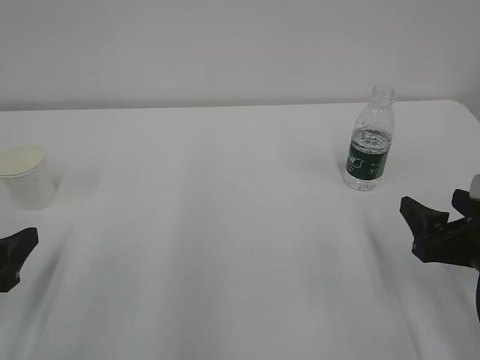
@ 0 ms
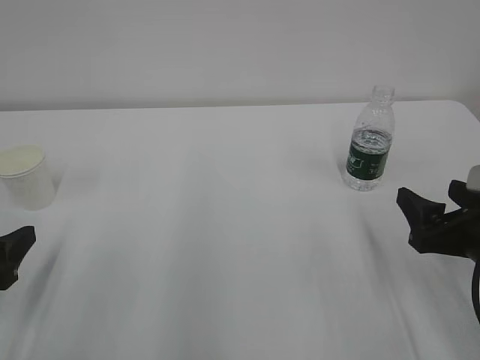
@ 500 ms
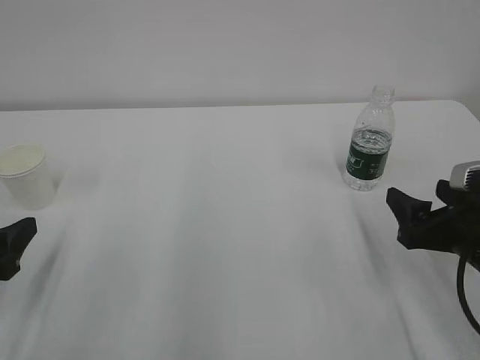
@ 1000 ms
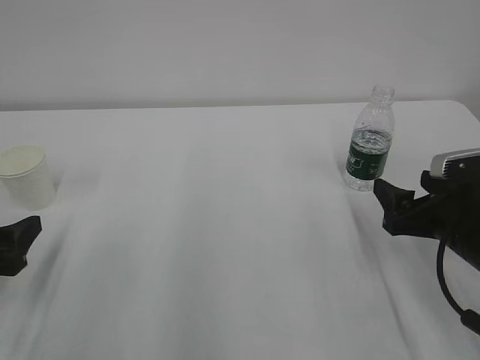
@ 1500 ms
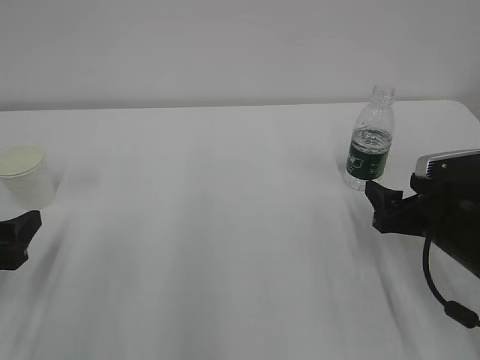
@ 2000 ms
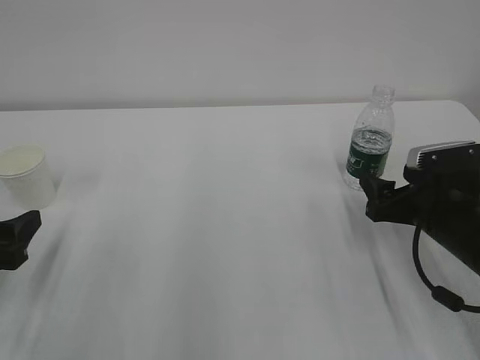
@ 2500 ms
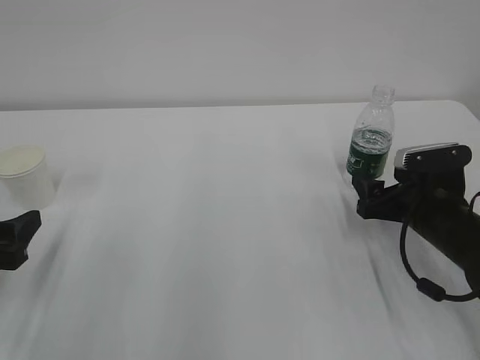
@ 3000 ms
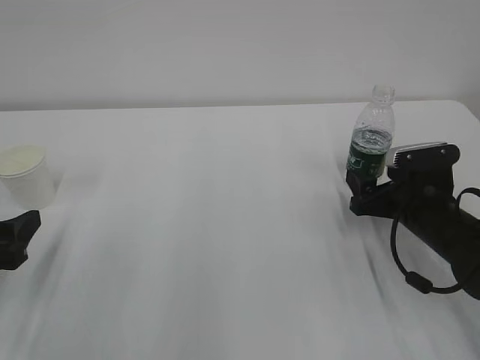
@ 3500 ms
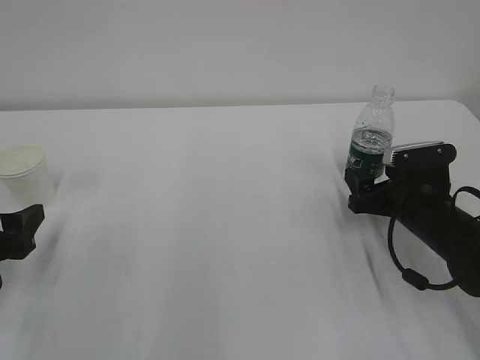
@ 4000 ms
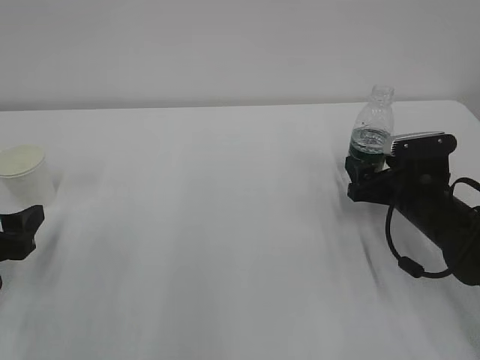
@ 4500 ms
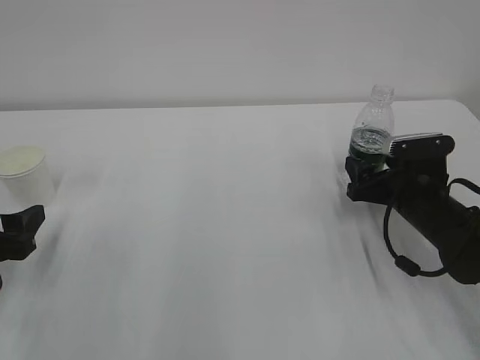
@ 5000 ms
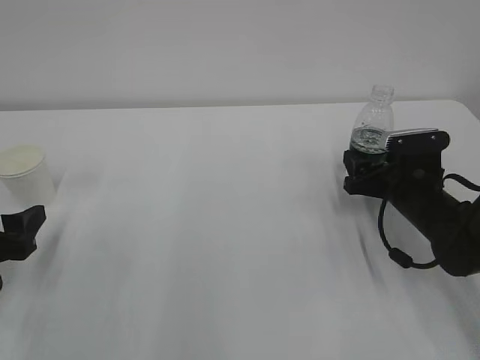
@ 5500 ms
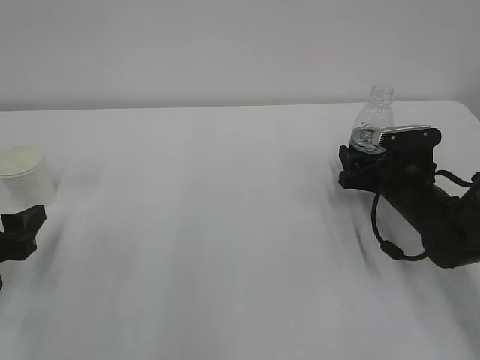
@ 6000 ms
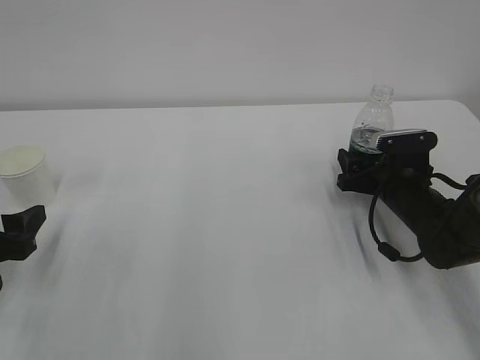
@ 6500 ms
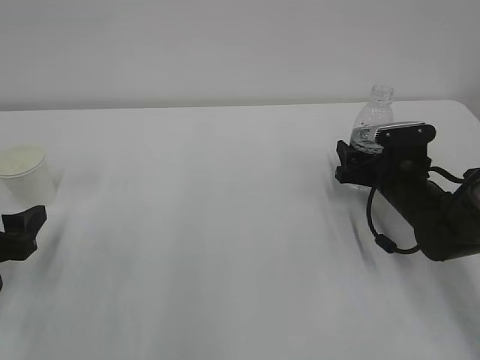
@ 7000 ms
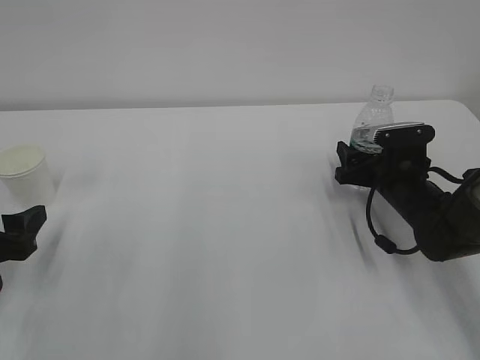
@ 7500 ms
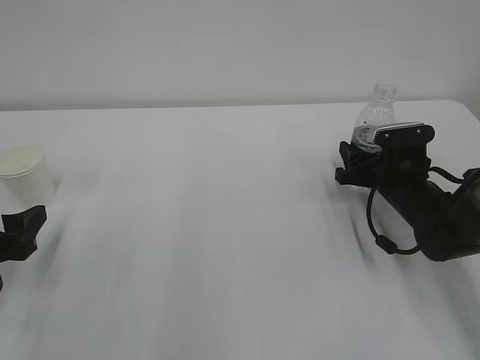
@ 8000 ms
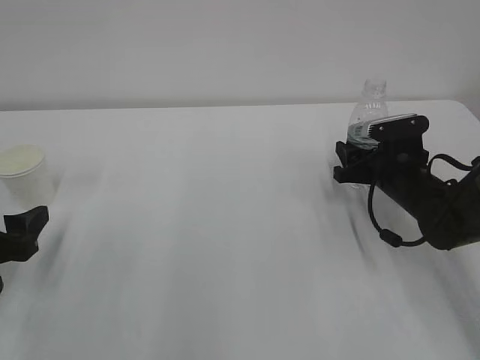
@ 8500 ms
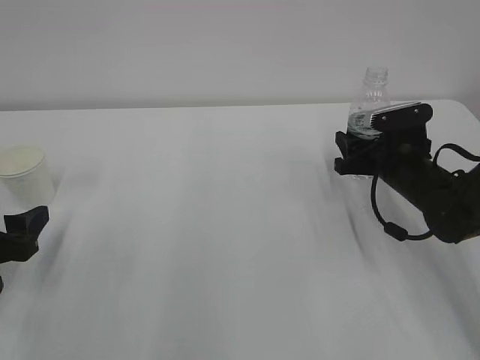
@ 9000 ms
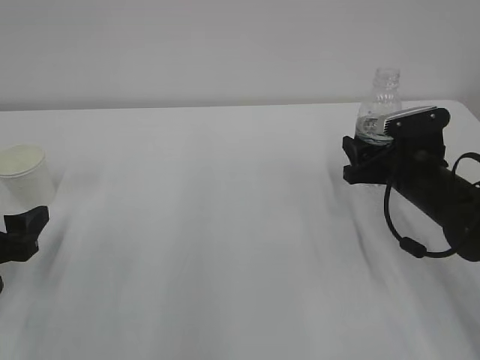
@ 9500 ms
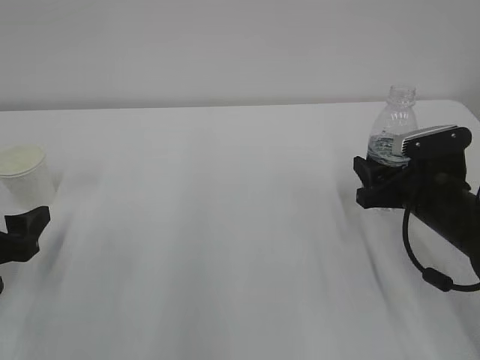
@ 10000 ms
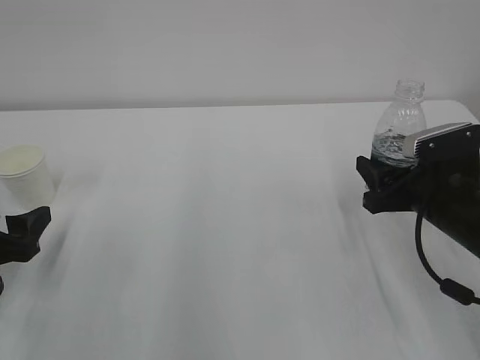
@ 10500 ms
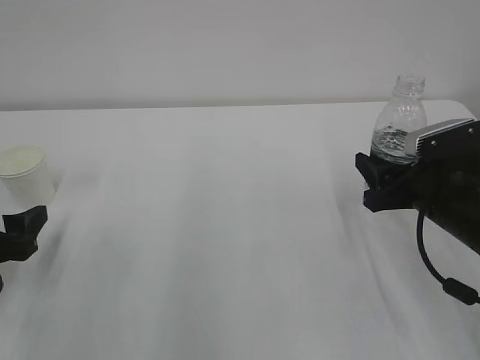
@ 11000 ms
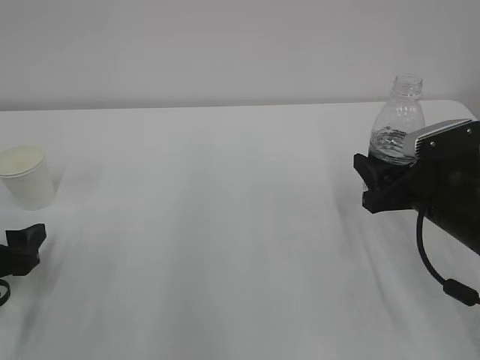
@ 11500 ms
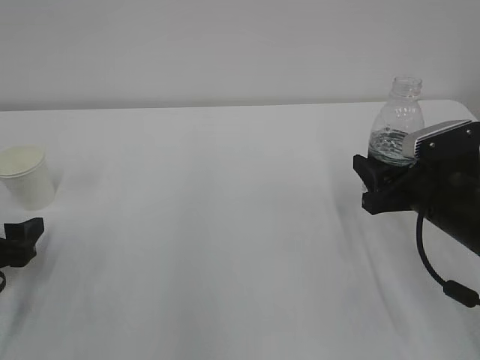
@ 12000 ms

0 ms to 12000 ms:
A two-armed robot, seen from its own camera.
0 ms to 2000 ms: The right gripper travels forward by approximately 5 cm.
2000 ms to 4000 ms: The right gripper heads forward, covering approximately 5 cm.
4000 ms to 6000 ms: There are only small adjustments of the grippers.
6000 ms to 8000 ms: The right gripper closes its fingers.
8000 ms to 10000 ms: The right gripper heads backward, covering roughly 5 cm.
10000 ms to 12000 ms: The grippers make only small movements.

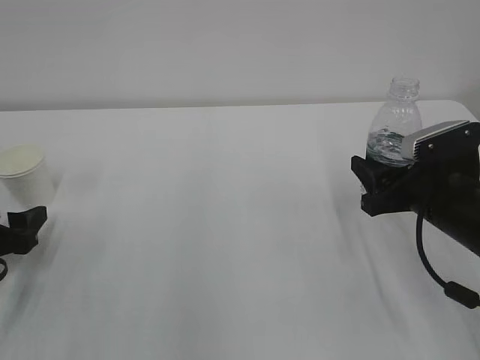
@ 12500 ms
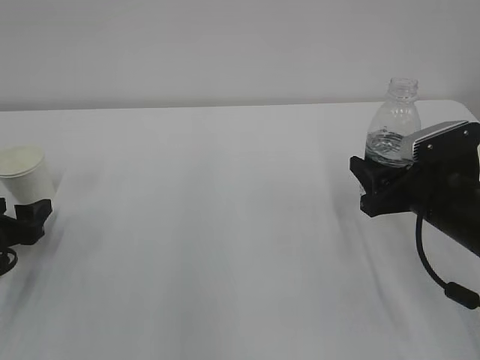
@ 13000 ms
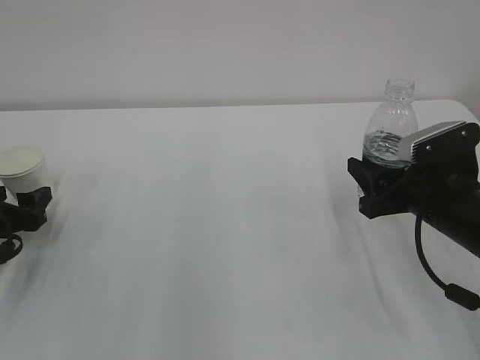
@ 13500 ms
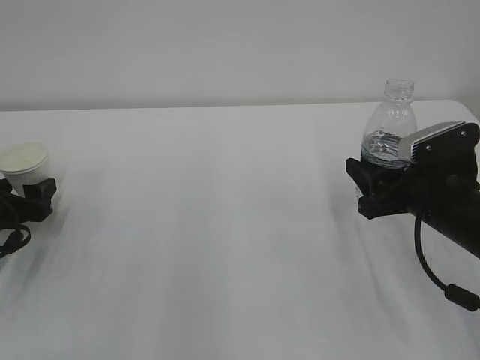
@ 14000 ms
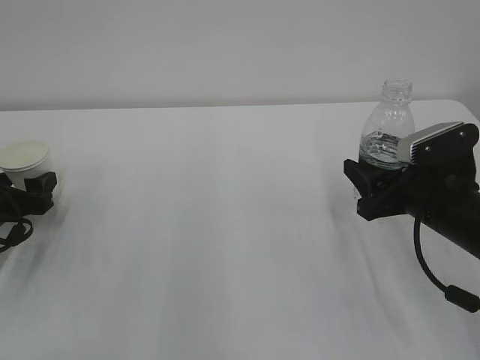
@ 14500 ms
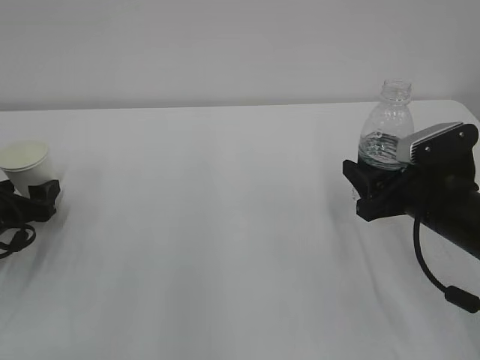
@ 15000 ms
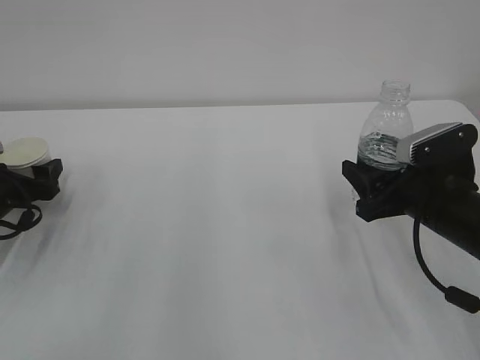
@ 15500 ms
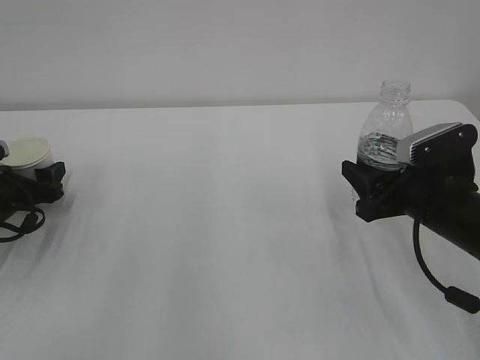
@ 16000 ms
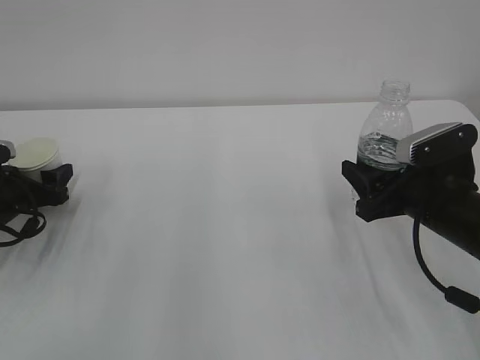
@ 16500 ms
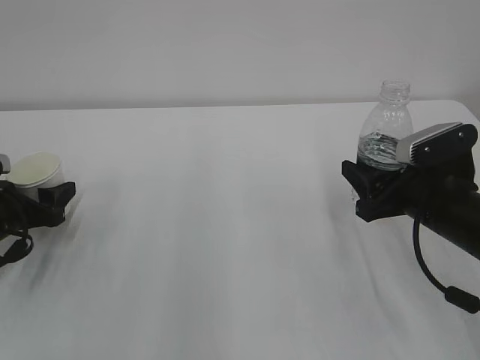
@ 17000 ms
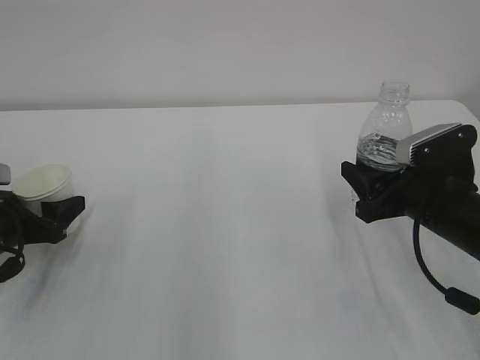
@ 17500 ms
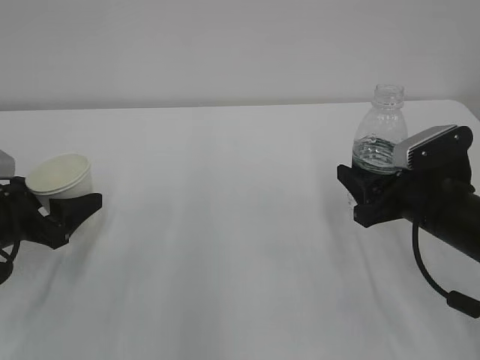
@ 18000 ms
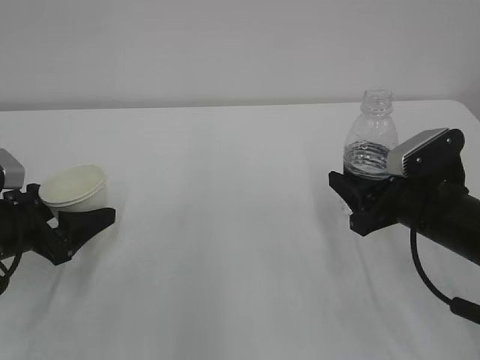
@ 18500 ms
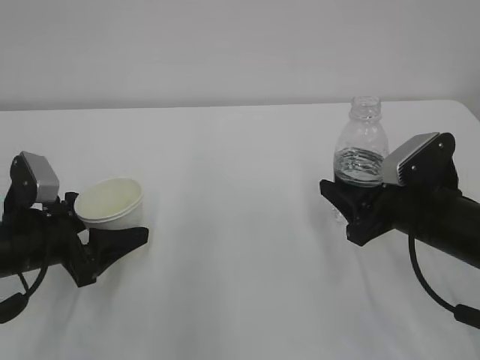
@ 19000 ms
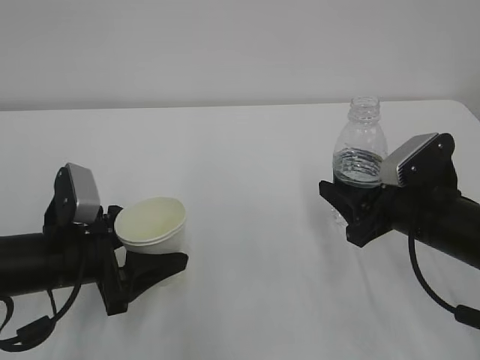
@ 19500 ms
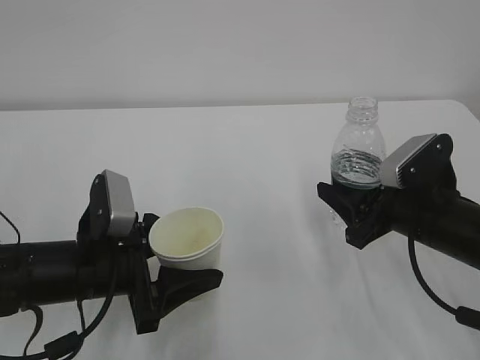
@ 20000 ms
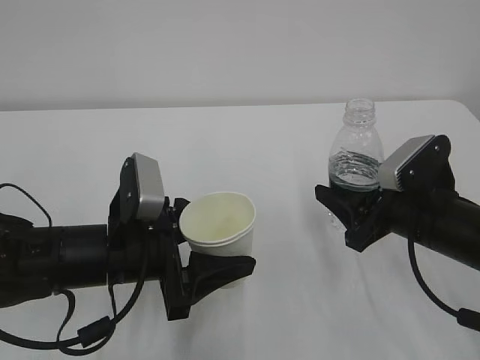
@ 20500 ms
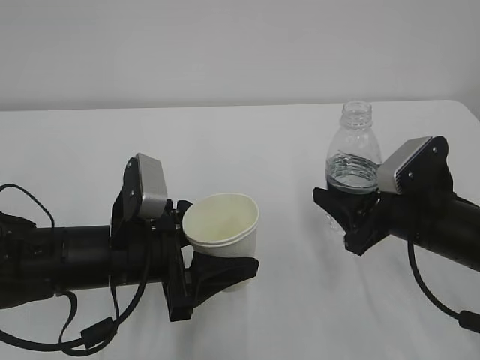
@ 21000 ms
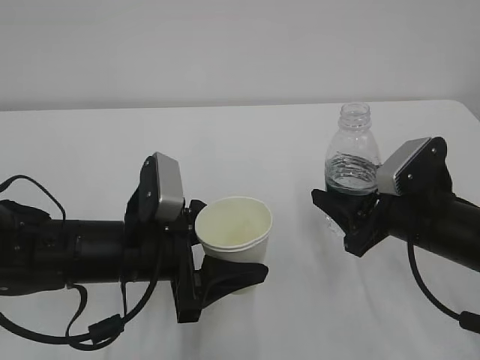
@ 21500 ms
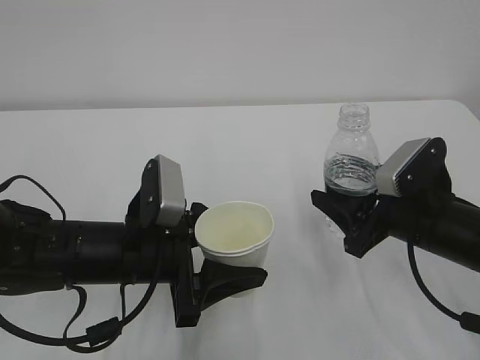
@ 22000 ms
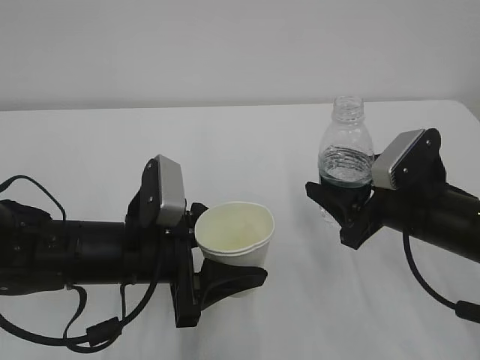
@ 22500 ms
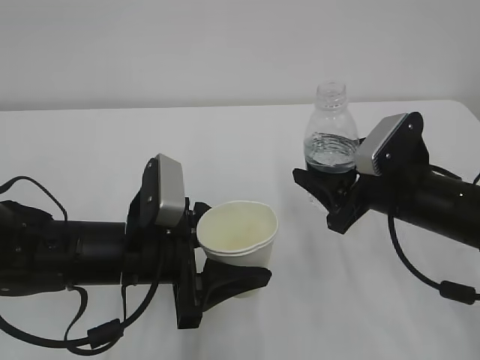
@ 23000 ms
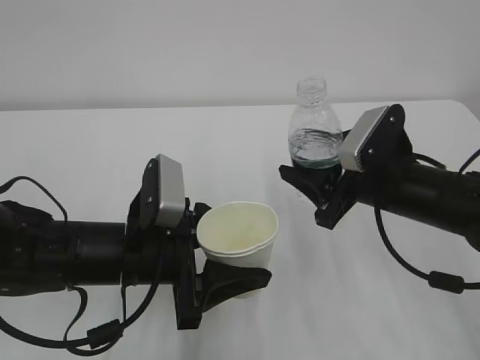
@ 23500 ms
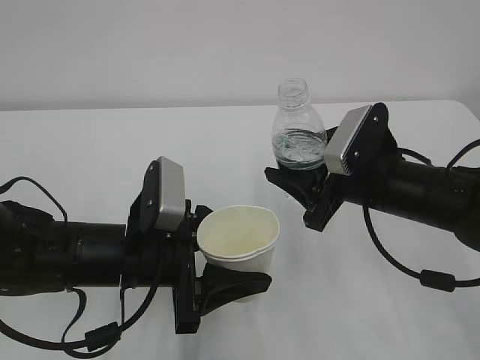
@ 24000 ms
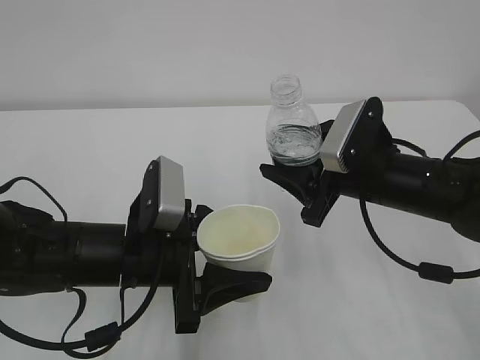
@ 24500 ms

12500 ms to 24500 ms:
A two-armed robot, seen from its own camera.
12500 ms to 14500 ms: The left gripper shifts approximately 5 cm forward.
14500 ms to 16500 ms: The left gripper closes.
16500 ms to 18500 ms: The left gripper shifts about 10 cm backward and to the right.
18500 ms to 20500 ms: The left gripper travels to the right by about 15 cm.
20500 ms to 22500 ms: There are only small adjustments of the grippers.
22500 ms to 24500 ms: The right gripper ends up roughly 5 cm from where it was.

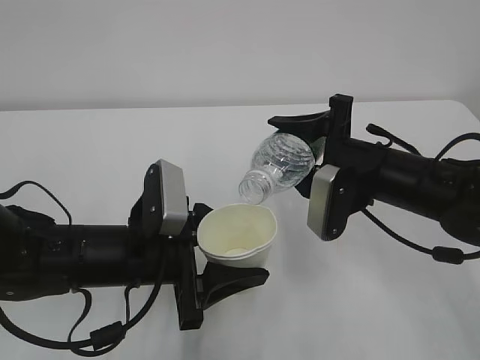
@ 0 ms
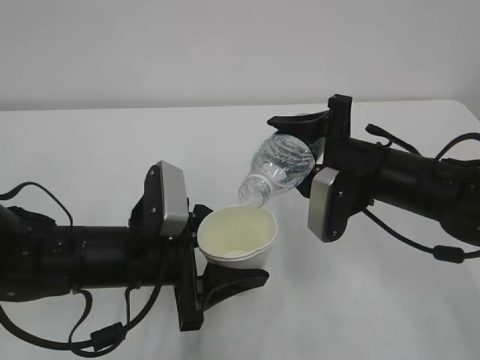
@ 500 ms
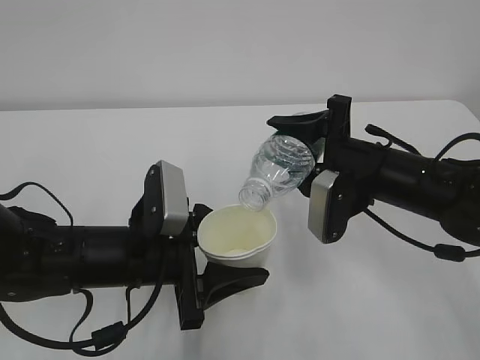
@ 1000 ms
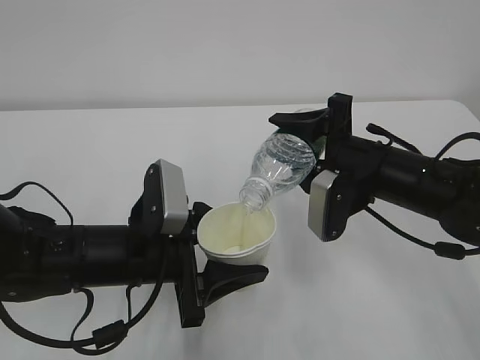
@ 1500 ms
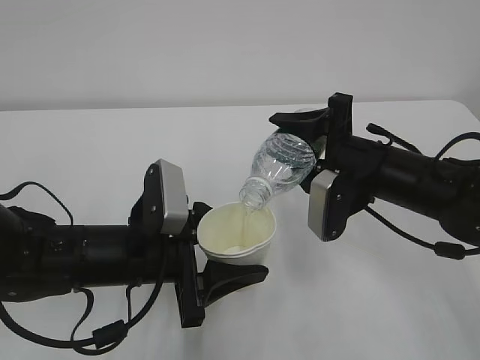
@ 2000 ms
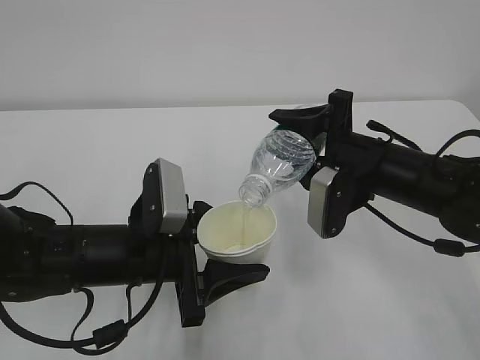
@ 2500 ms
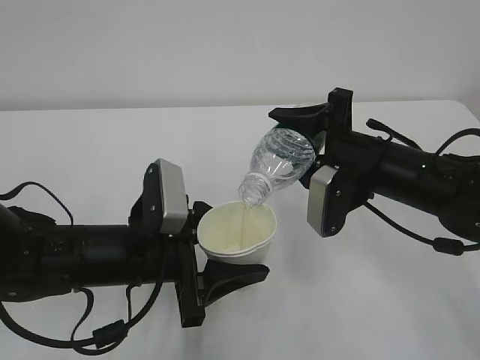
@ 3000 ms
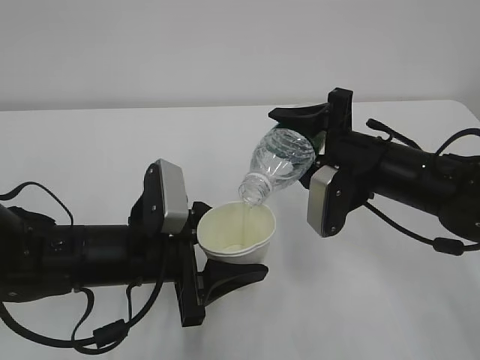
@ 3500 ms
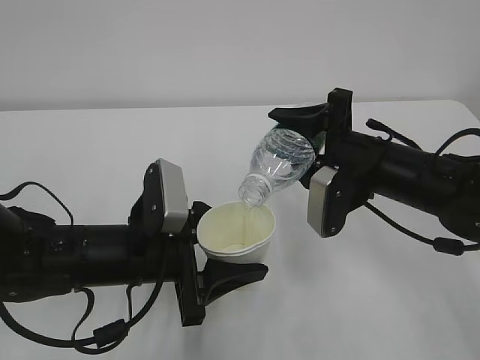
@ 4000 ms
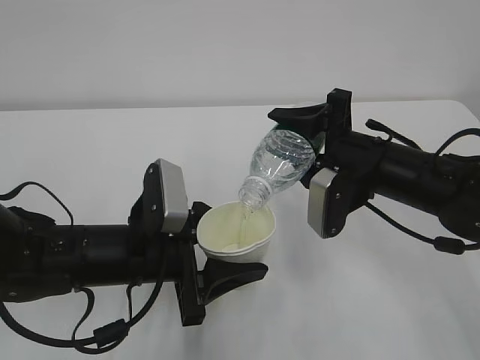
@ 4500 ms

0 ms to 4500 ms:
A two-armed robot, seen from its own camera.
0 ms to 2000 ms: The grippers make only small movements.
2000 ms to 4500 ms: Neither gripper changes place.
